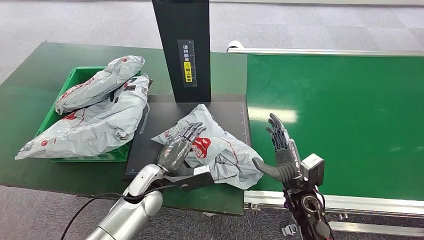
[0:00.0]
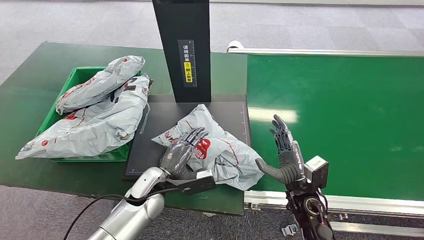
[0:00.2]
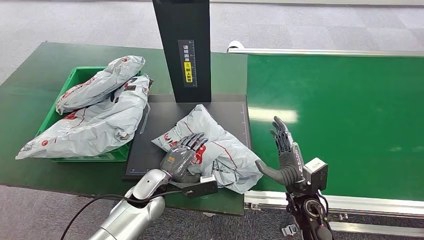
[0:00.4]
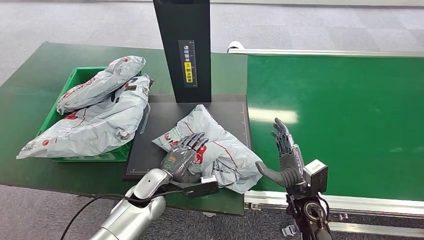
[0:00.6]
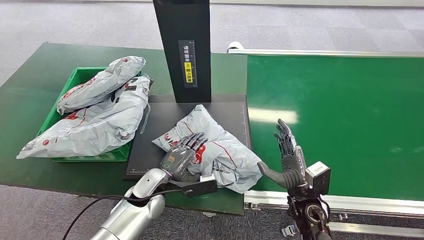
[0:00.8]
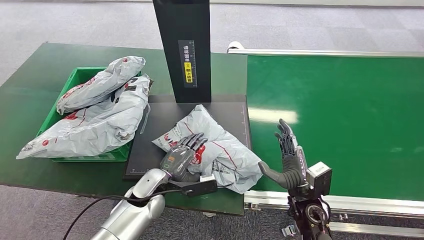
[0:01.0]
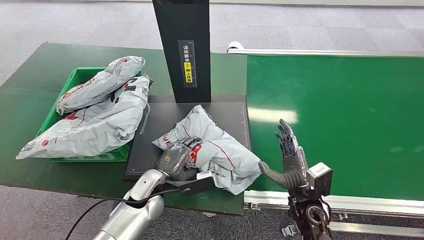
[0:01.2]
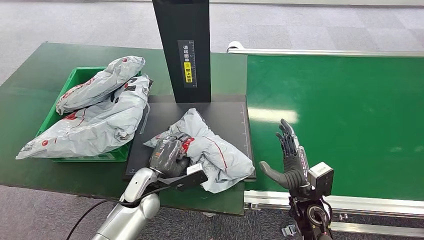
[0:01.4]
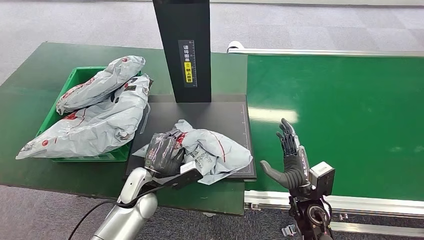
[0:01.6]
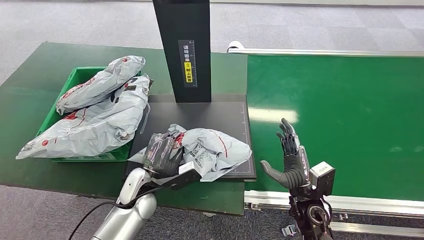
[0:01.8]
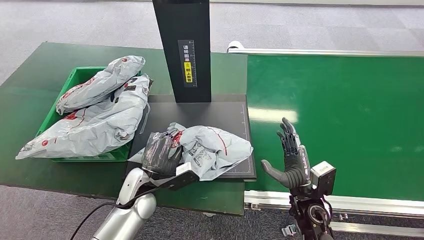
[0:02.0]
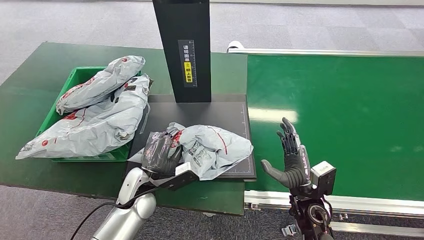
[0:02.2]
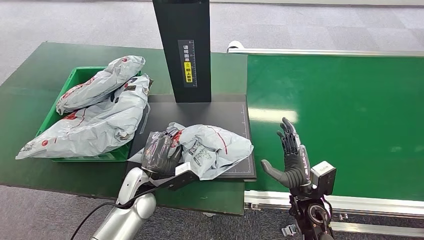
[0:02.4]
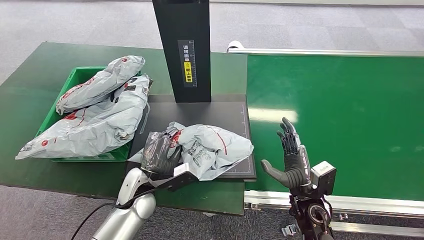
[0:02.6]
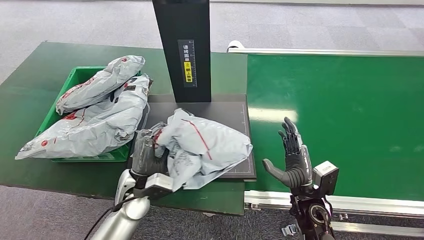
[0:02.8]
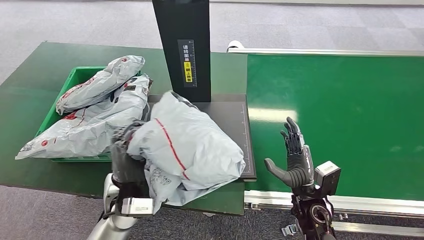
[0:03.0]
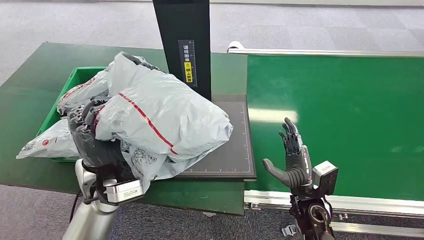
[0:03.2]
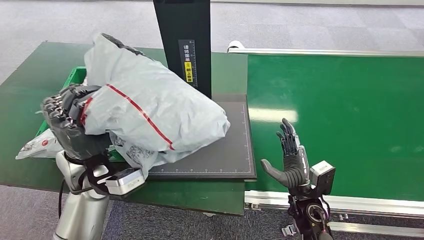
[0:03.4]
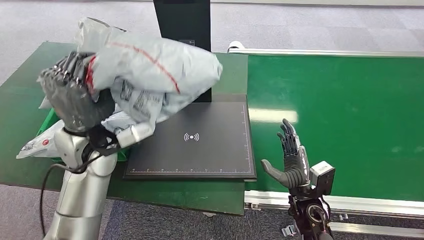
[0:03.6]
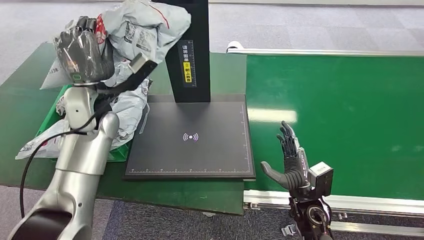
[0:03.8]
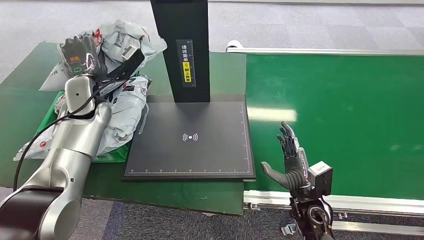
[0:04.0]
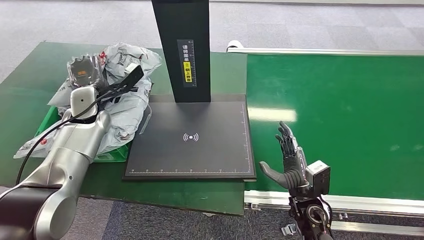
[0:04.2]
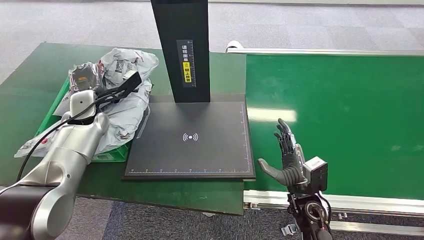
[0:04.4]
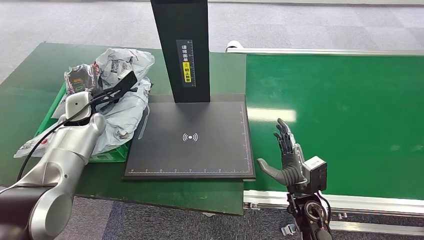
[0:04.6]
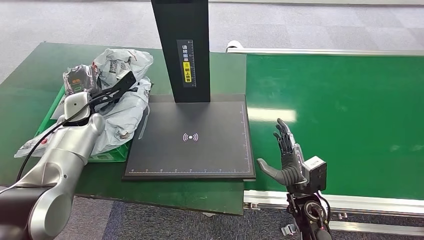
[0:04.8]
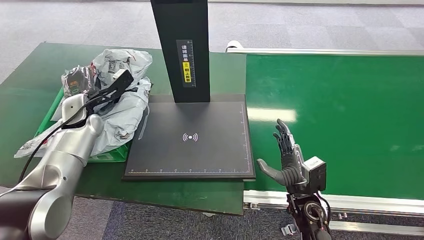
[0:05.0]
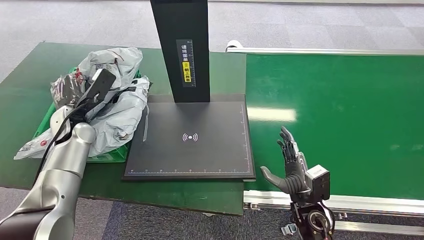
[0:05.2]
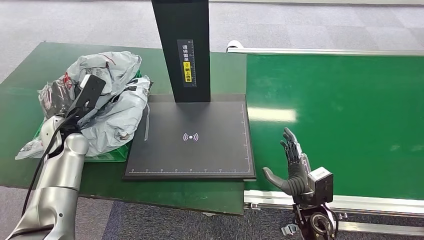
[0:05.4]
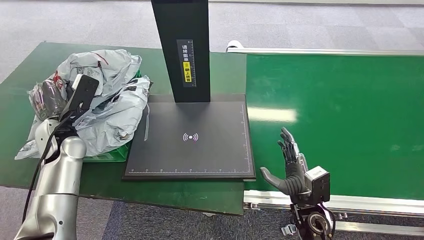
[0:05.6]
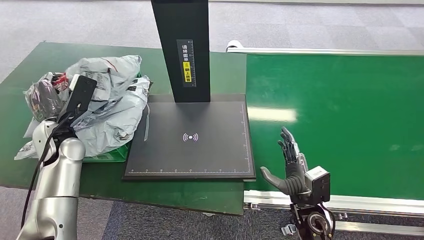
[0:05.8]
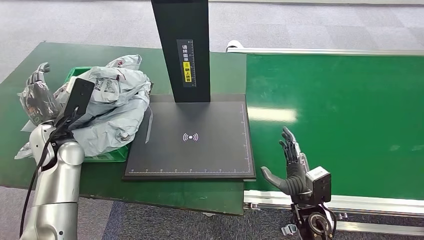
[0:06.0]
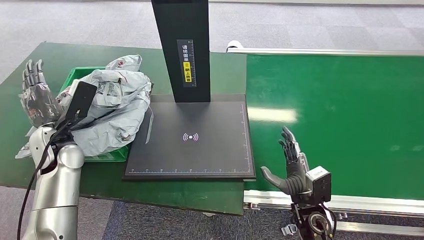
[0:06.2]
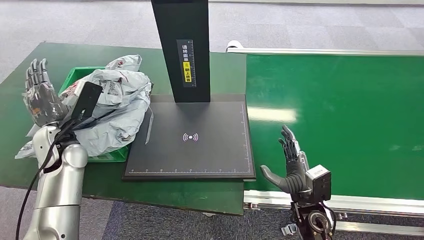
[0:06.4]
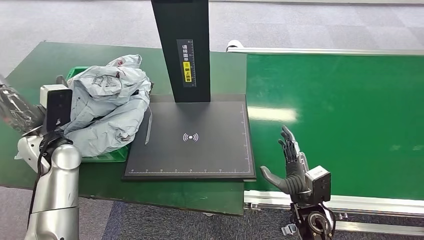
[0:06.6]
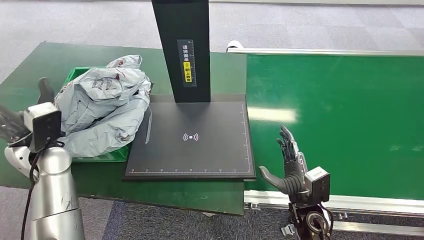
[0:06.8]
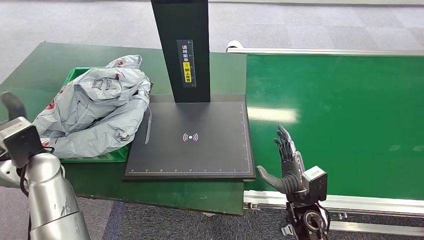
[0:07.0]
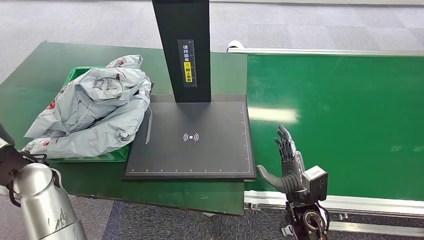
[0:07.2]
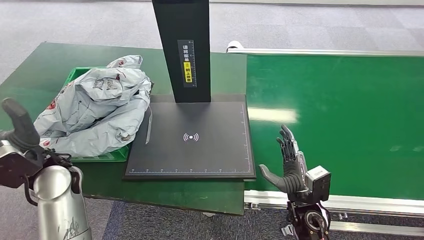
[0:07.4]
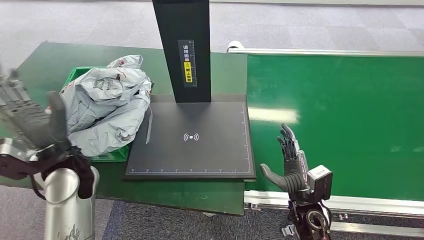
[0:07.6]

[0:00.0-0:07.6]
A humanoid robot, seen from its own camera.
Step, 0:02.0 to 0:03.2: Pick up the package from the inbound machine.
Step, 0:03.6 to 0:07.6: Place the package into the parcel locker.
0:00.0 to 0:01.6: The hands make only small movements.
0:01.6 to 0:03.0: The left hand shifts approximately 5 cm upward.
0:04.6 to 0:06.0: The left hand is displaced backward by some 10 cm.
0:06.0 to 0:07.6: The left hand is displaced to the right and backward by roughly 10 cm.
